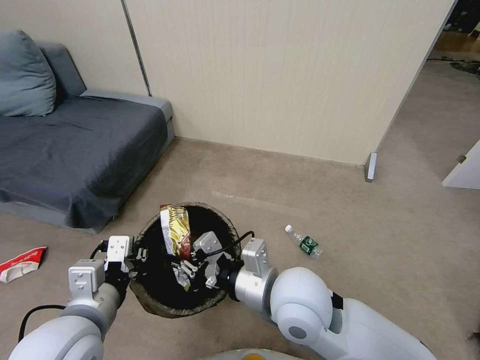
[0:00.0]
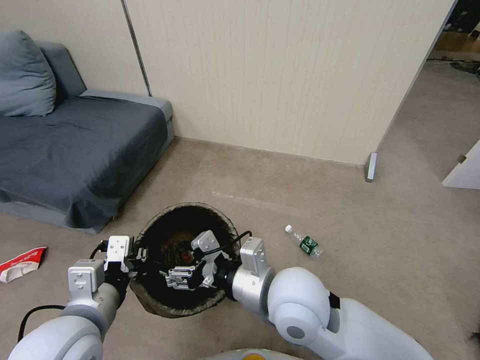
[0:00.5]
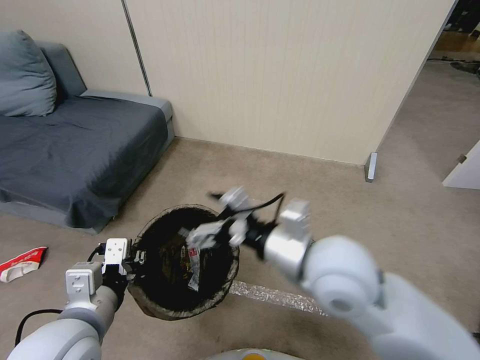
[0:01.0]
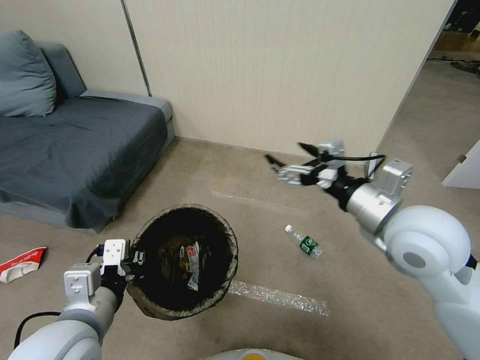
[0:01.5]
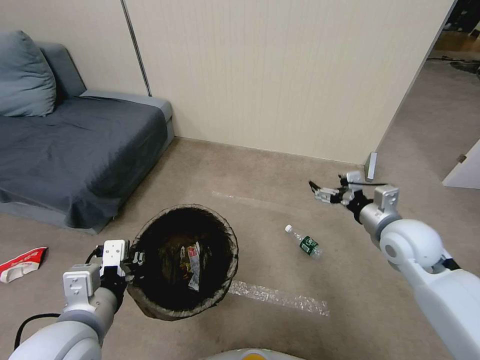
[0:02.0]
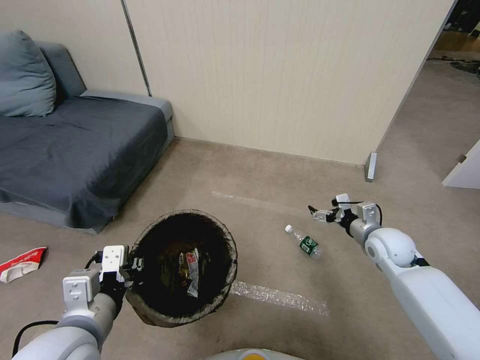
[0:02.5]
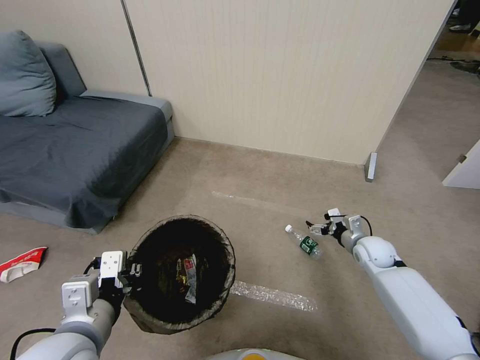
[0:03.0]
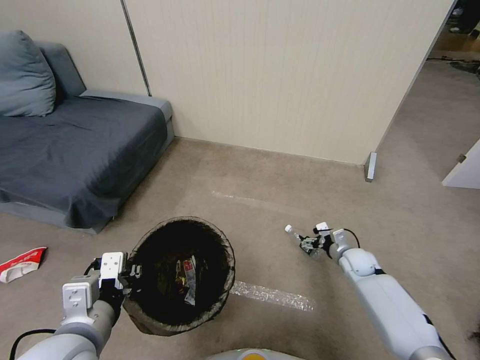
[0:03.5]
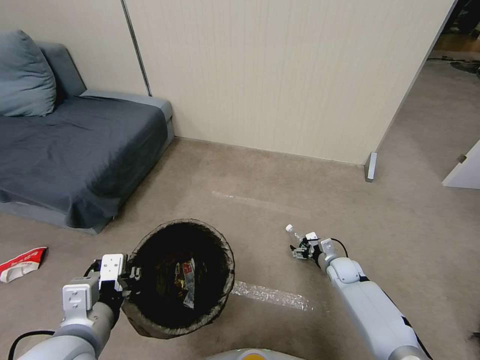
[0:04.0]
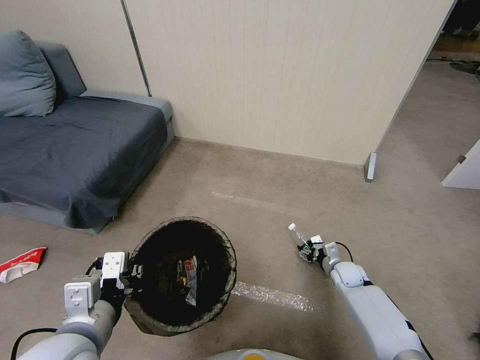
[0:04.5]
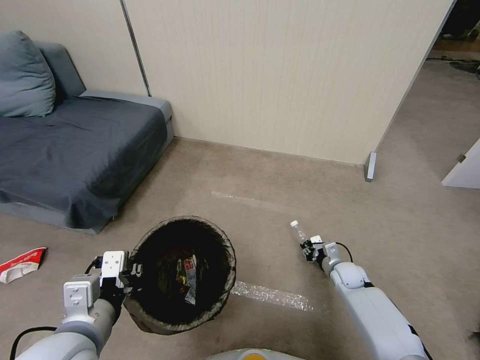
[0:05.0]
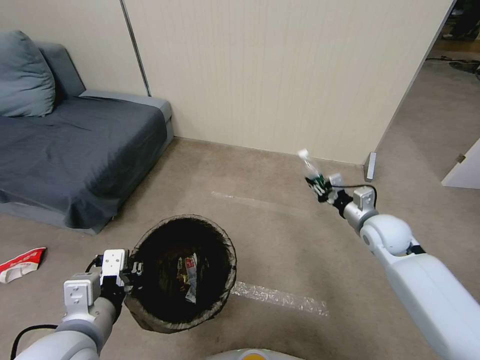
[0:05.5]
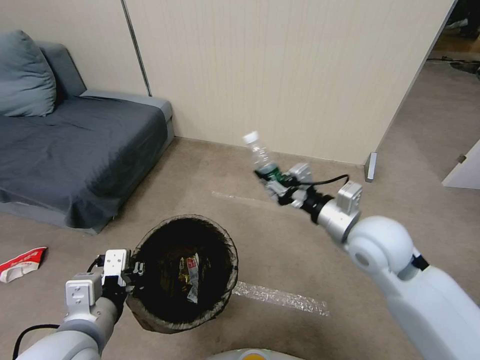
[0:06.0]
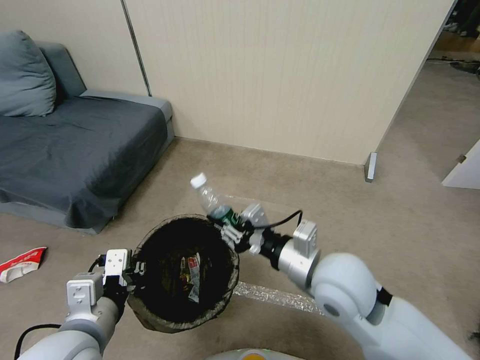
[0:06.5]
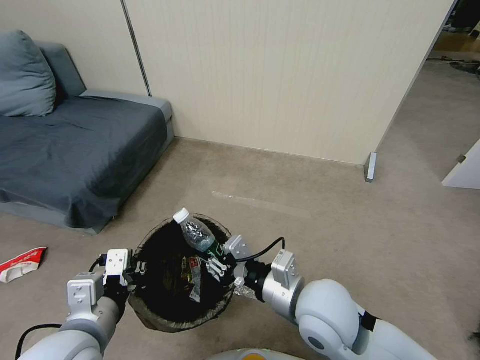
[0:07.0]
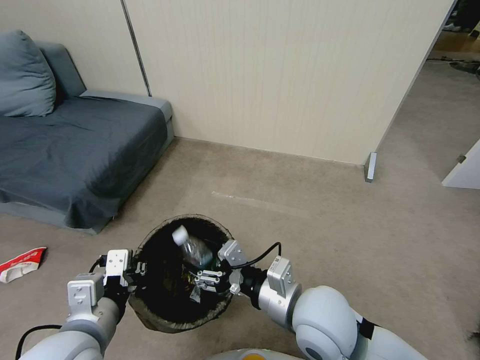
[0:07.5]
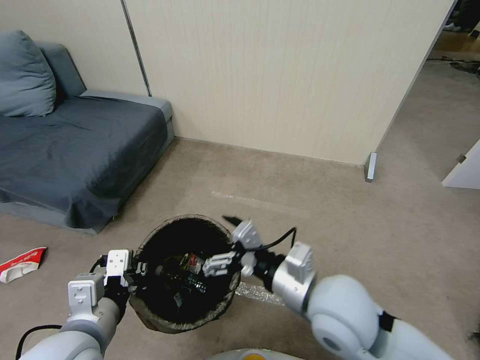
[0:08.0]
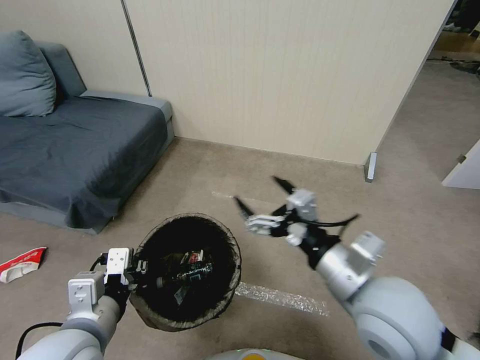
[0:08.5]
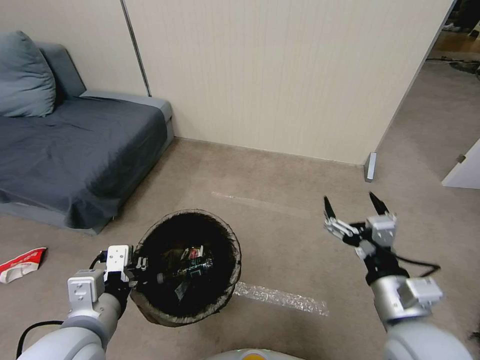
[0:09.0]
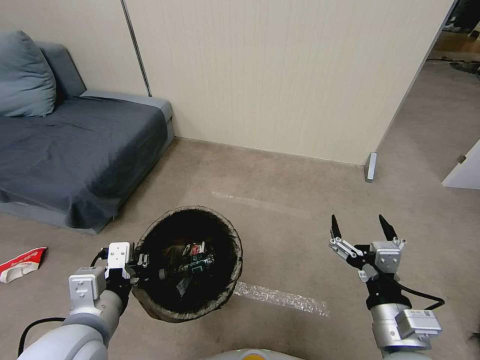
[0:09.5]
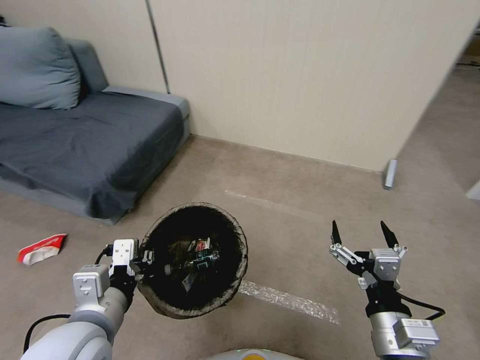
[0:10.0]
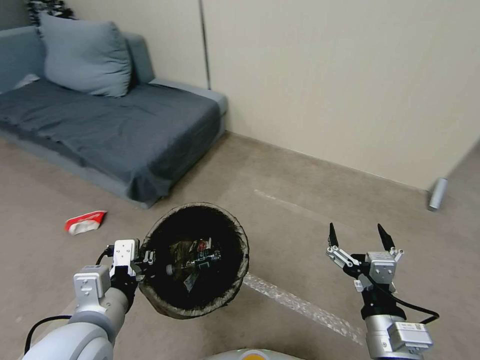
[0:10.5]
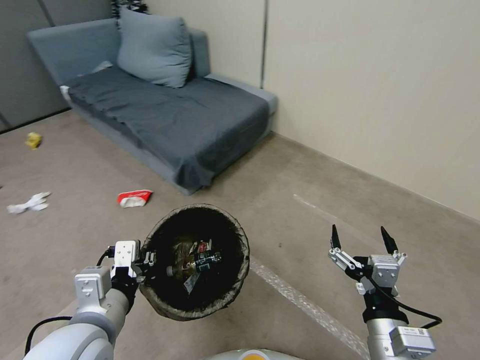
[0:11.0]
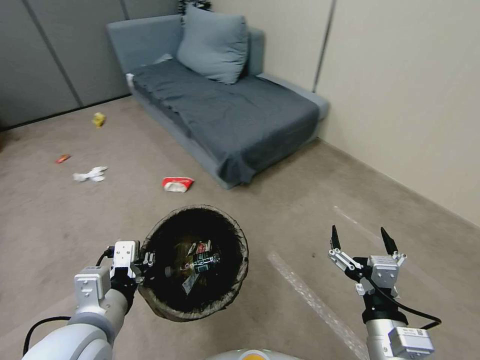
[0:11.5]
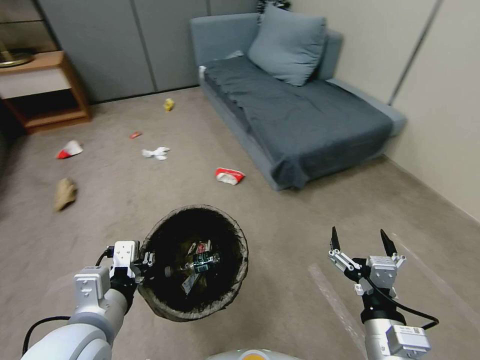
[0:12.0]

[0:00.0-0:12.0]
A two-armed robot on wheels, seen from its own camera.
Task of the whole recording: Pick up the trash bin, then pick up the garbage from the floor and place it into the trash bin.
0:00.0 to 0:02.0: The right gripper shifts some 25 cm to the right and forward, and opens its fingers.
0:02.0 to 0:04.0: The right gripper goes some 30 cm downward.
0:04.0 to 0:06.0: The right gripper is displaced upward by approximately 35 cm, and closes up.
0:06.0 to 0:08.0: The right gripper goes about 15 cm backward and to the left, and opens its fingers.
0:08.0 to 0:10.0: The right gripper goes some 15 cm to the right, backward and downward.

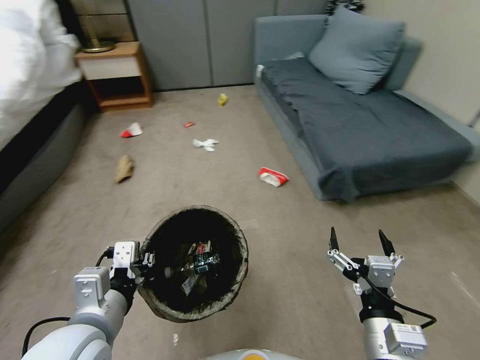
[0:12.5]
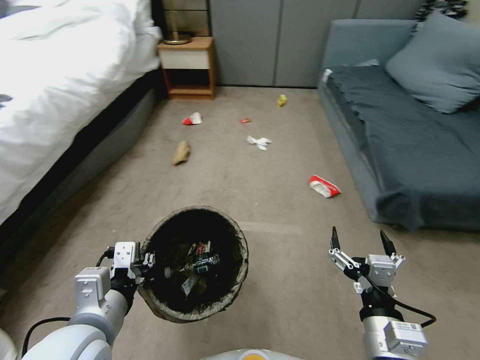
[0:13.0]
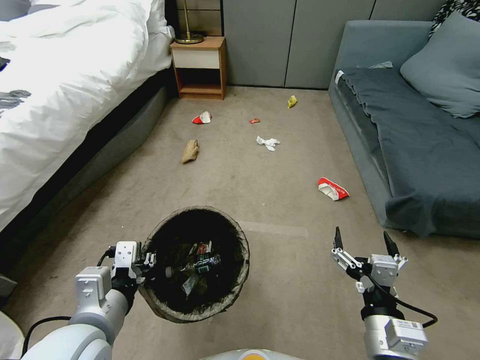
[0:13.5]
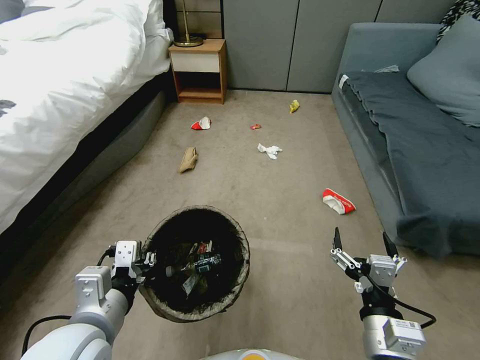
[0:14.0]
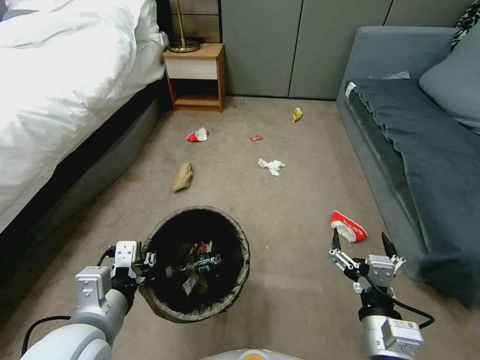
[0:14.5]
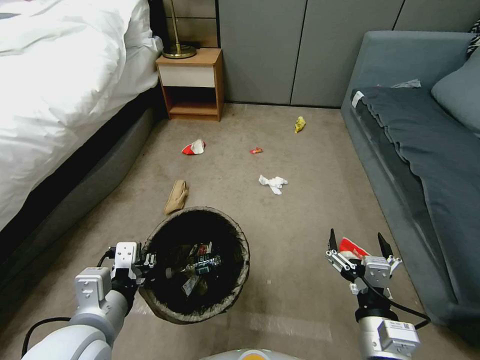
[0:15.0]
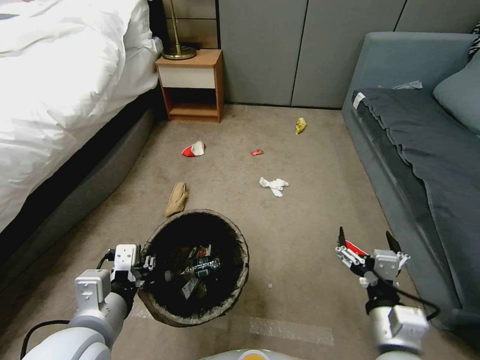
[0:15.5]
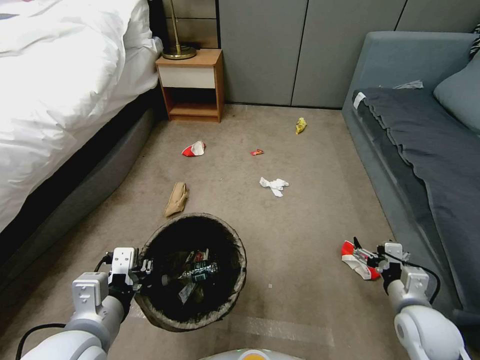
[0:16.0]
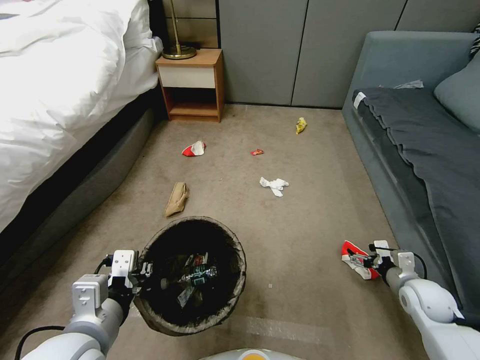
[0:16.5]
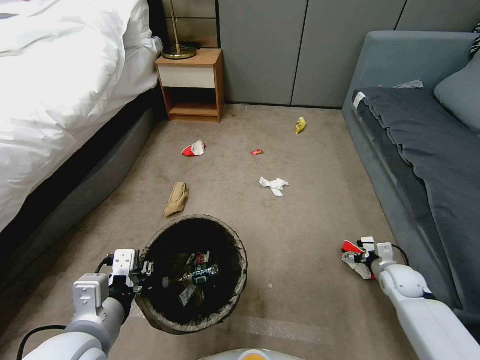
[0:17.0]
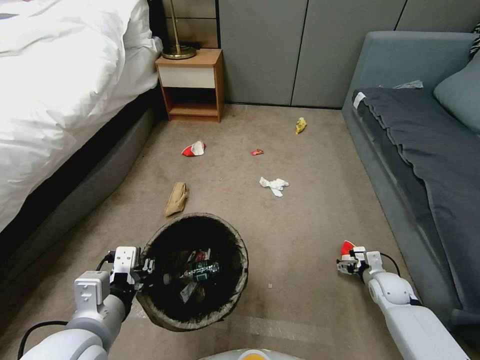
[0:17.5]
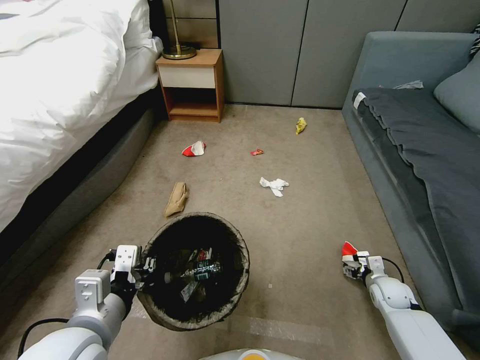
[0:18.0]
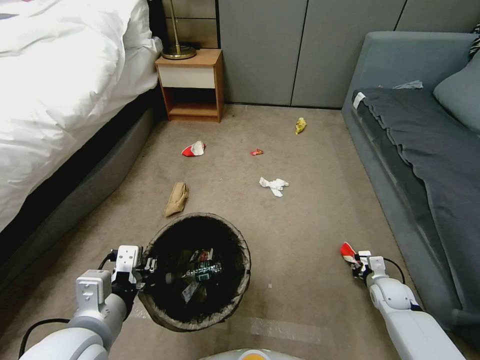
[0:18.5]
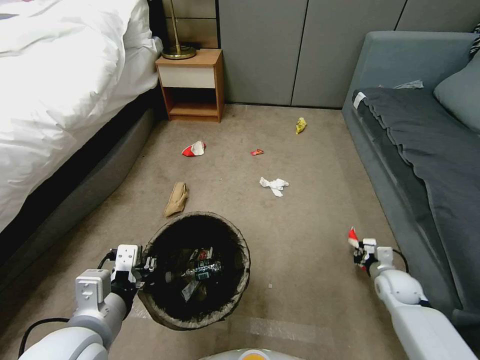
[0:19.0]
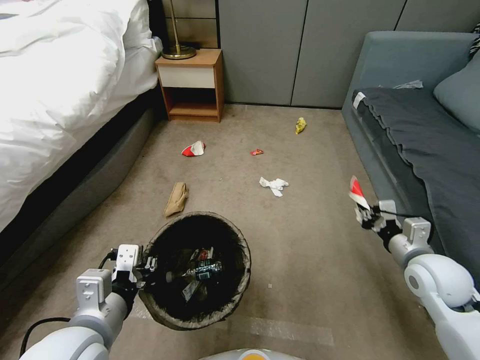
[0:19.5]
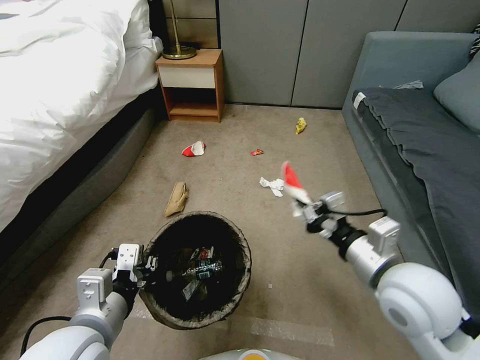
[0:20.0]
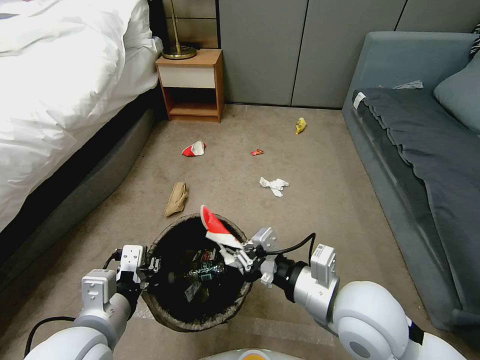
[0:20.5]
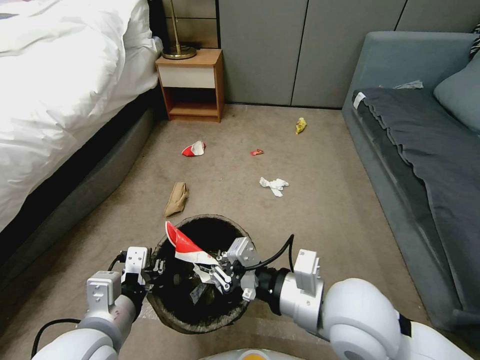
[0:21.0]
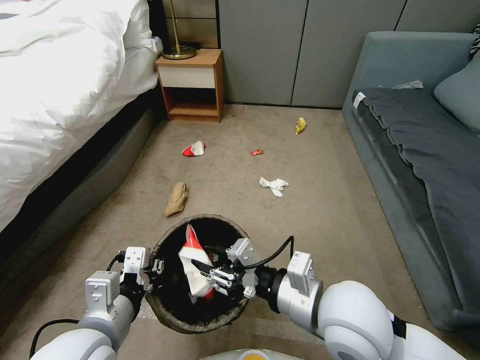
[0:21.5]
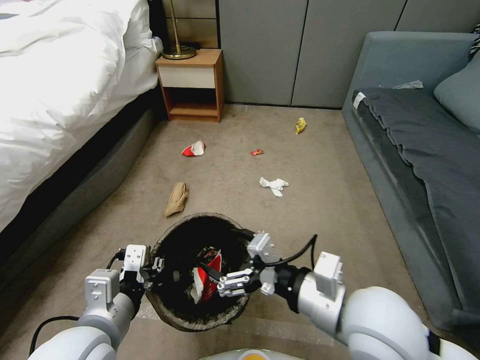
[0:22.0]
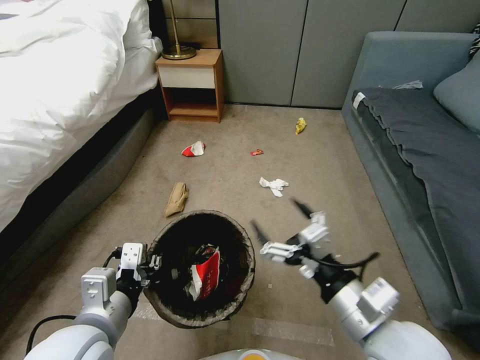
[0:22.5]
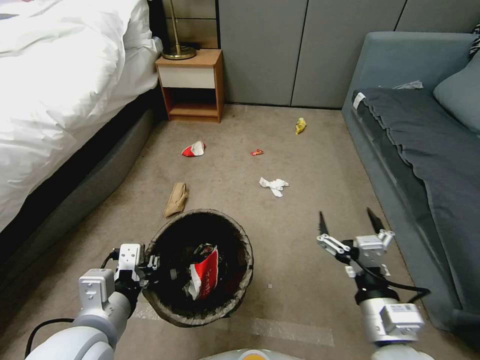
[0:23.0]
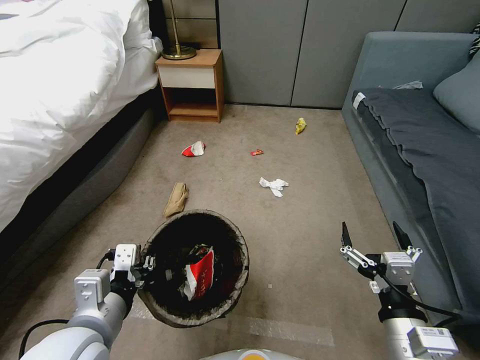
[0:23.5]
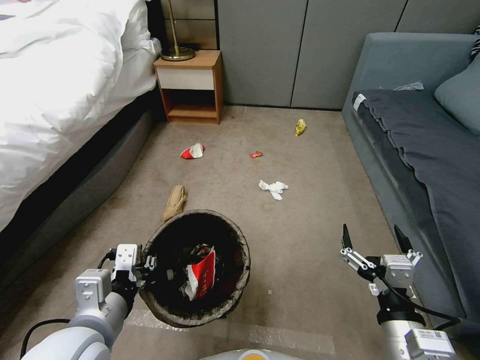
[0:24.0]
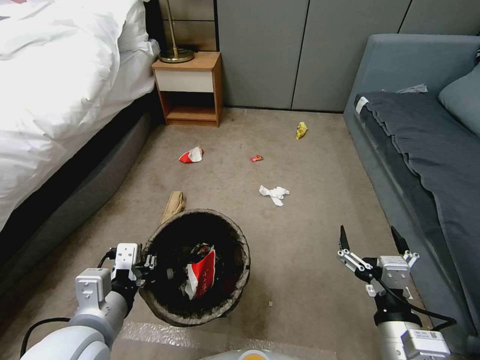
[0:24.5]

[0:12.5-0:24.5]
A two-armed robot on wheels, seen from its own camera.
Task of the whole recording: Pick up the trash bin, then pick up the garbage from the floor and place it into the trash bin.
0:14.5 to 0:16.5: The right gripper goes some 30 cm to the right, forward and downward.
0:16.5 to 0:18.5: The right gripper shifts about 10 cm downward, and closes up.
0:18.5 to 0:20.5: The right gripper goes about 40 cm upward and to the left.
0:20.5 to 0:22.5: The right gripper travels backward by approximately 5 cm, and opens its fingers.
0:22.5 to 0:24.5: The right gripper heads downward, covering some 5 cm.

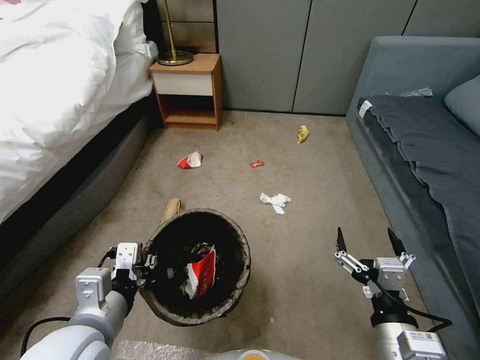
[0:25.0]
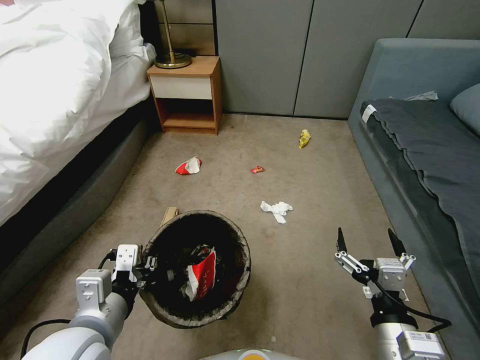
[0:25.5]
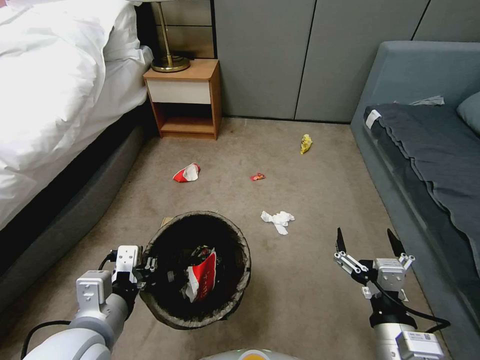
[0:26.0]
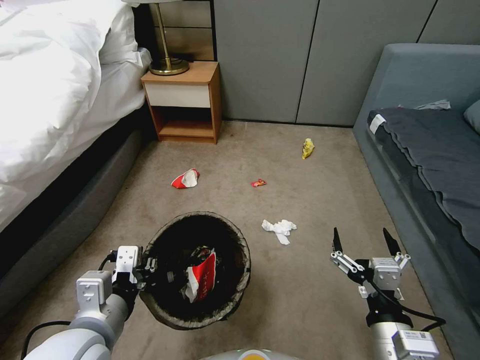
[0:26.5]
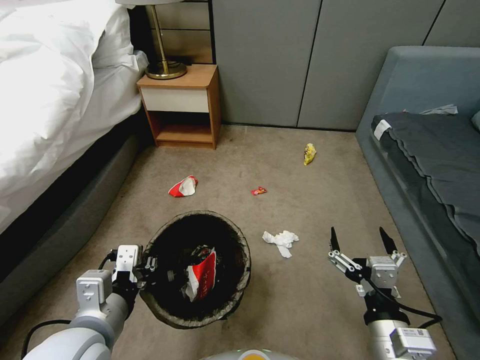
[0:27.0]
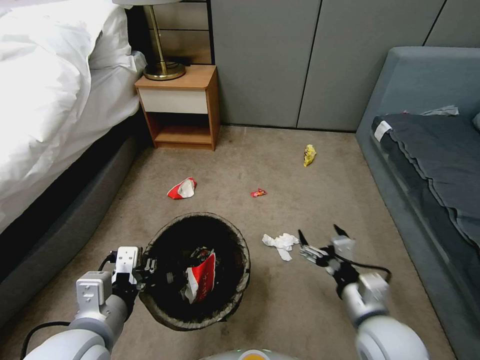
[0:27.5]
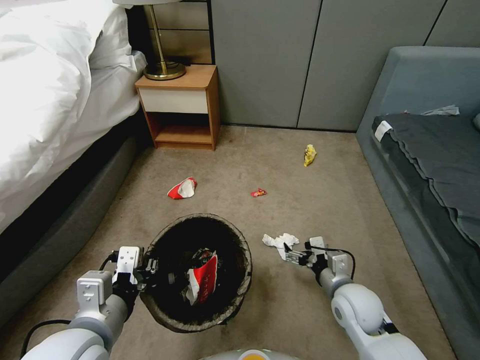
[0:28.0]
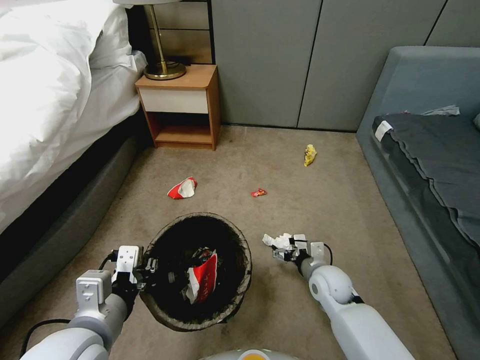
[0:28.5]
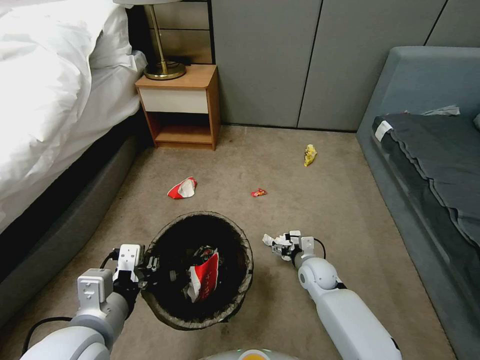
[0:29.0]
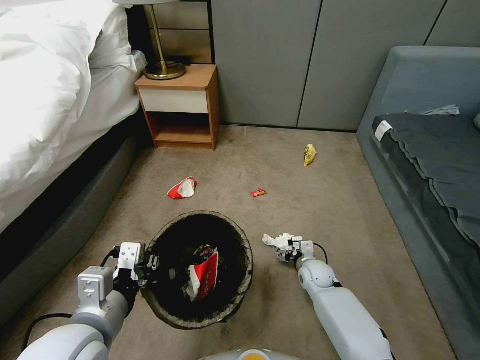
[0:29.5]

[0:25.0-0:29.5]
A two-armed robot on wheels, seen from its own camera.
Task of the whole recording: Pick up the trash bin, then pick up the garbage from the floor and place it into the trash bin.
0:27.0 to 0:29.5: The right gripper goes roughly 35 cm forward and downward.
